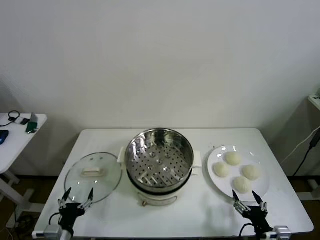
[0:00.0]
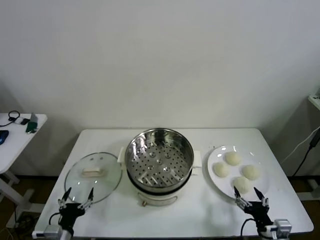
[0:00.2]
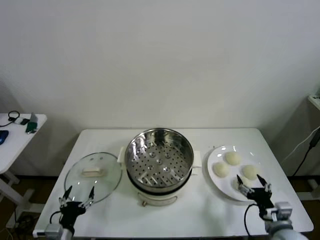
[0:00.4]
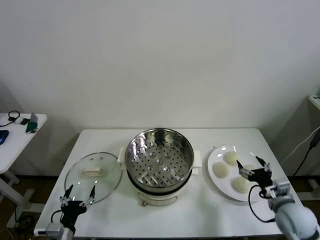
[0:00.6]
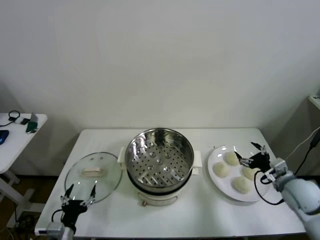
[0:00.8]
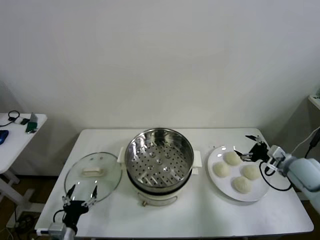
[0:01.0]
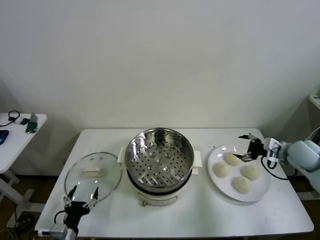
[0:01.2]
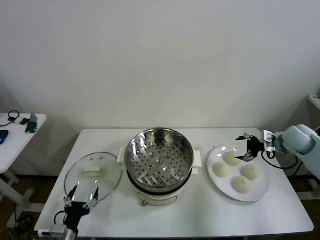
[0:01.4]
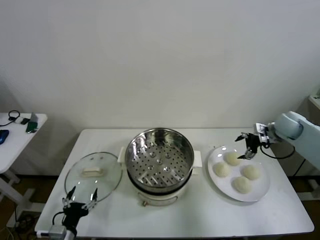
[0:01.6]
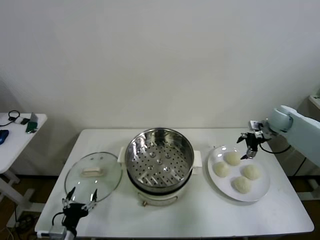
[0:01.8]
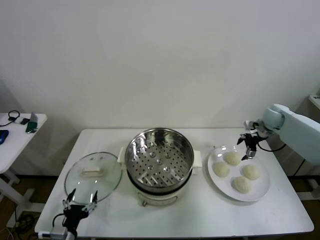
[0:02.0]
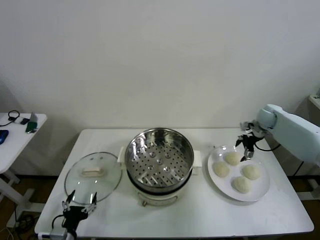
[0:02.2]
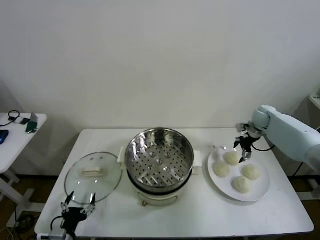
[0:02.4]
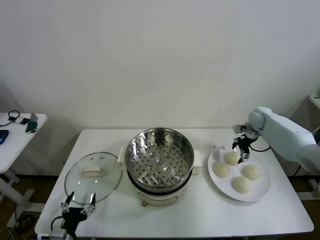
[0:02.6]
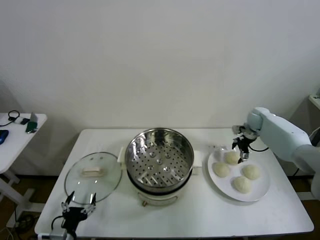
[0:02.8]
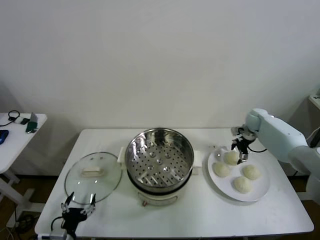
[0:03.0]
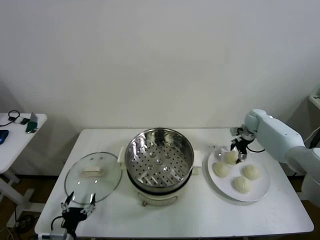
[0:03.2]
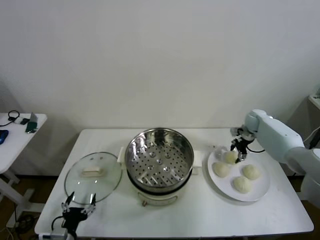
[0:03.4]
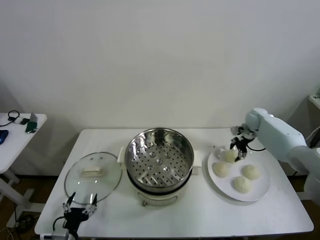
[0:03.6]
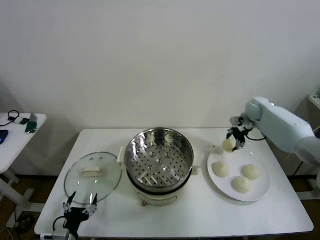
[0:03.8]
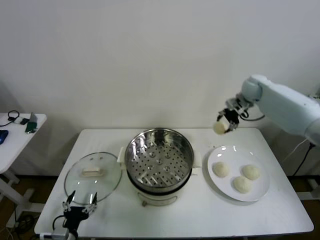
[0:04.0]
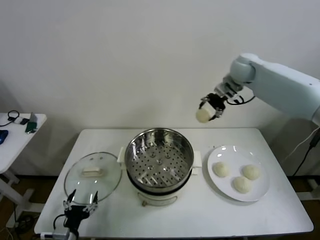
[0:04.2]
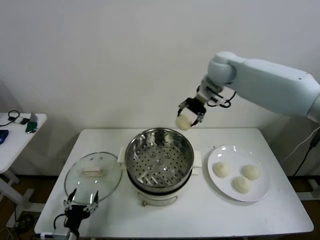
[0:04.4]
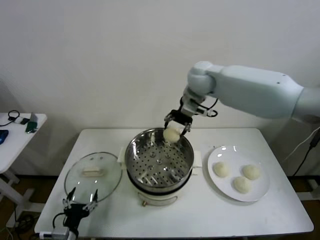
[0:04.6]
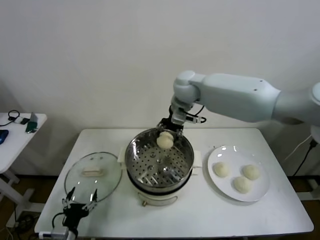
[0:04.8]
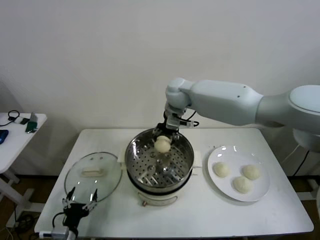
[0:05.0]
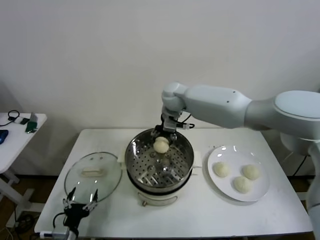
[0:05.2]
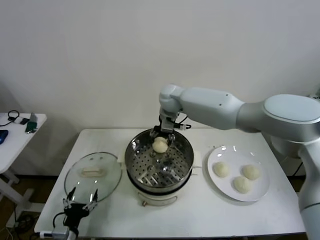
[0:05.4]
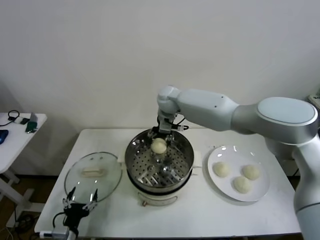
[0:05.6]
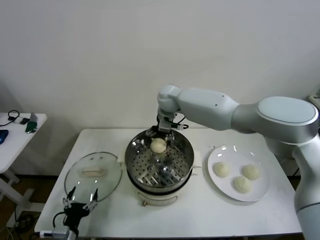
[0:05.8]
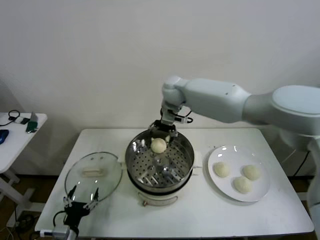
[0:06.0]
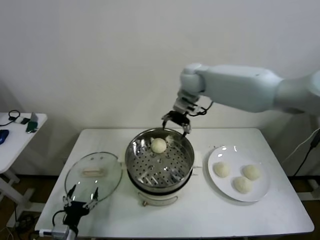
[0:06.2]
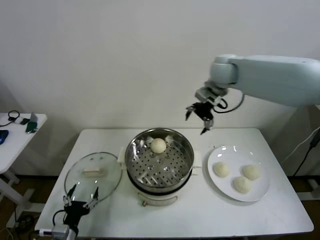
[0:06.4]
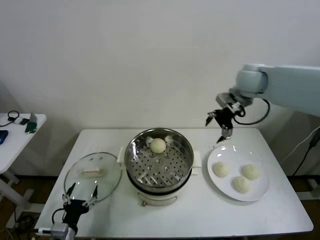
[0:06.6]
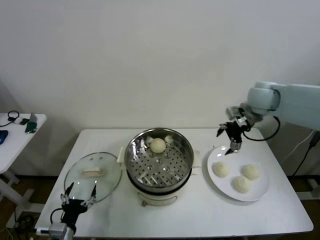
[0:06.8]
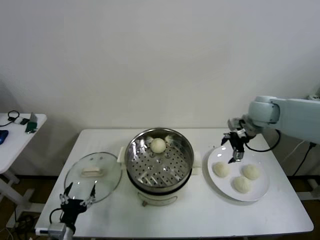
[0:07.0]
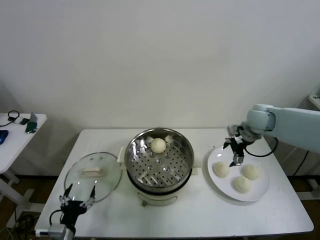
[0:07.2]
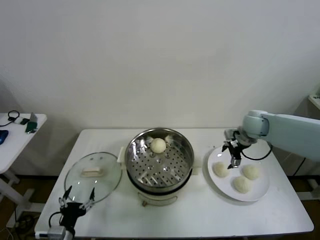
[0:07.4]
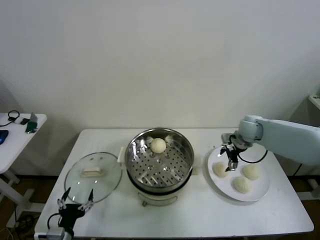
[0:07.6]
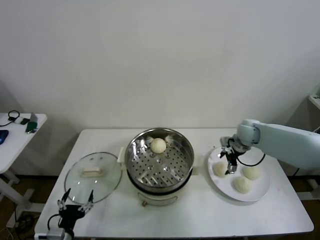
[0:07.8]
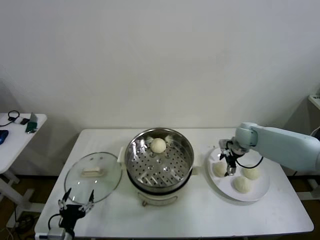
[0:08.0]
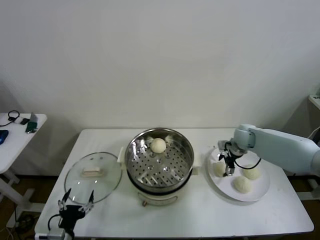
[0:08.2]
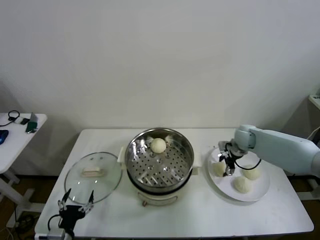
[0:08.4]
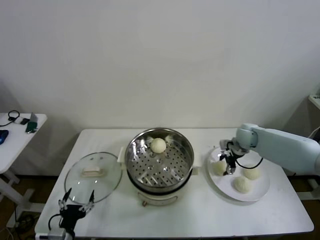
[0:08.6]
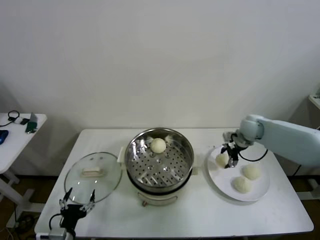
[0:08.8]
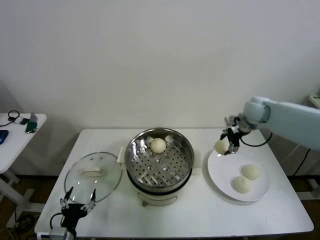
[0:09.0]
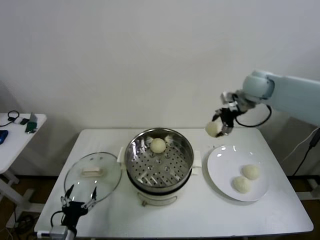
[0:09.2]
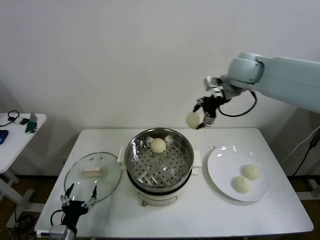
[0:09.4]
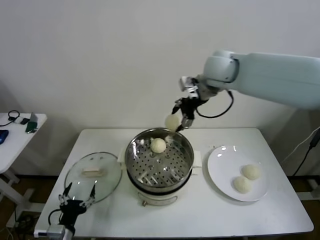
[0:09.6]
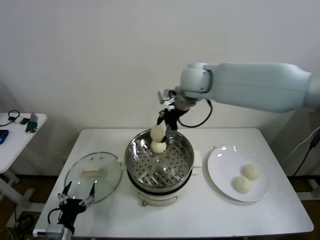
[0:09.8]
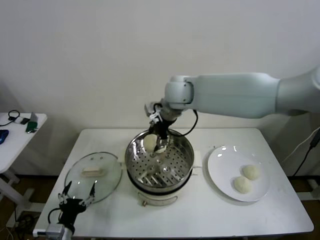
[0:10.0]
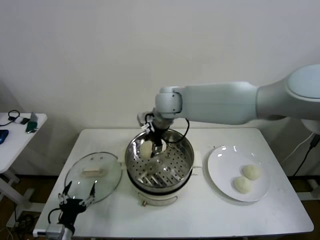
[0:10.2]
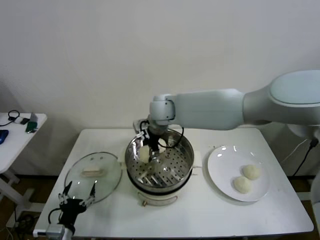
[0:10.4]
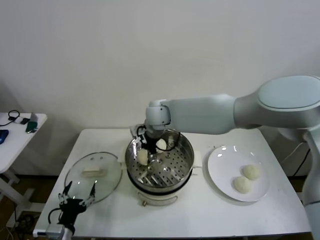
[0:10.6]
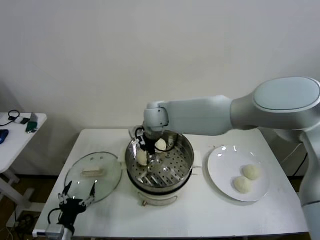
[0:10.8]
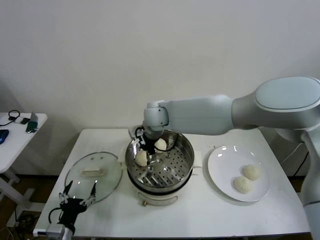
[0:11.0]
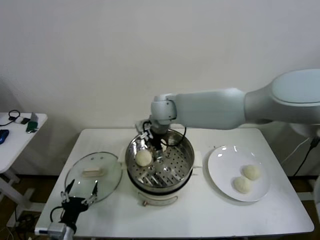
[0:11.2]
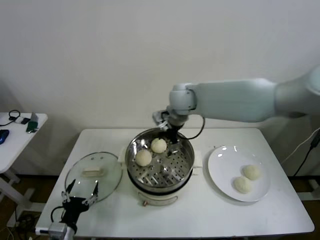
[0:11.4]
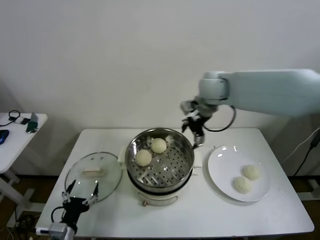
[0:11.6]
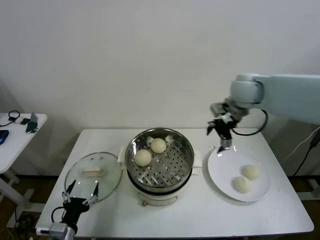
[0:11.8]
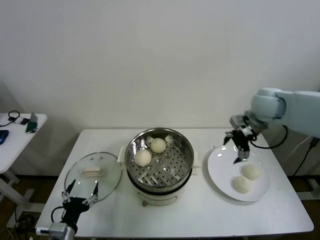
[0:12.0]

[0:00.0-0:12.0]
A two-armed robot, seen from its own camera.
Step, 0:00.0 to 0:03.4: Grasp the baozi in the plate with right gripper.
Step, 0:03.6 to 0:05.6: Place the baozi on the steamer with right gripper.
Step, 0:05.8 to 0:08.4: Grasp the baozi in the plate with right gripper.
Step, 0:08.6 to 0:11.0: Place the baozi on the steamer with right gripper.
0:01.6 to 0:03.0: The right gripper is displaced forward and downward by approximately 10 cm.
0:03.0 to 0:04.4: The right gripper moves to the left and upward, some 35 cm, and closes.
0:04.4 to 0:06.0: The right gripper shifts about 10 cm to the left, and opens up.
0:06.0 to 0:07.6: The right gripper travels to the right and downward by approximately 30 cm.
0:07.6 to 0:09.0: The right gripper shifts roughly 15 cm upward, and closes its fingers.
0:09.0 to 0:10.4: The right gripper heads to the left, covering some 35 cm.
0:10.4 to 0:12.0: The right gripper travels to the right by approximately 35 cm, and opens its fingers.

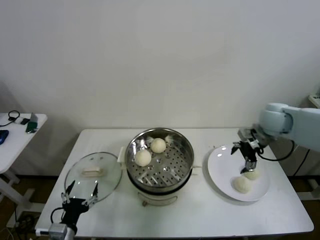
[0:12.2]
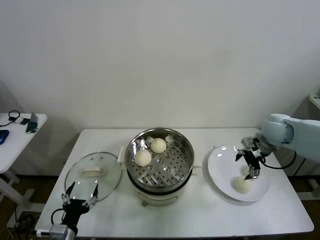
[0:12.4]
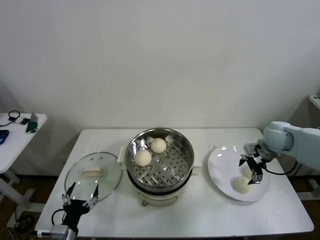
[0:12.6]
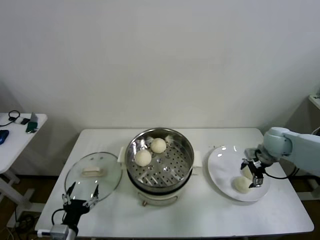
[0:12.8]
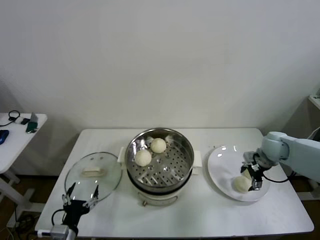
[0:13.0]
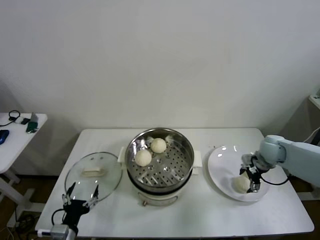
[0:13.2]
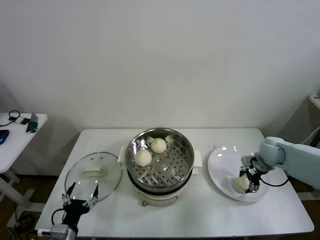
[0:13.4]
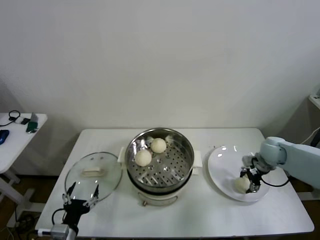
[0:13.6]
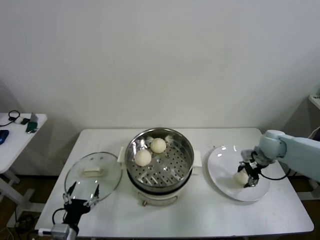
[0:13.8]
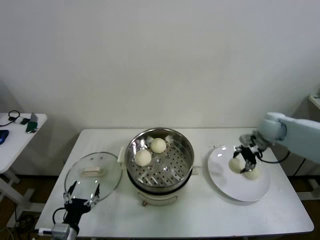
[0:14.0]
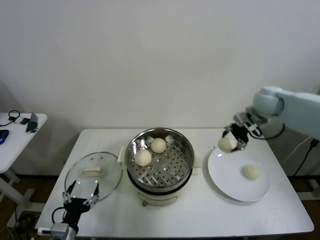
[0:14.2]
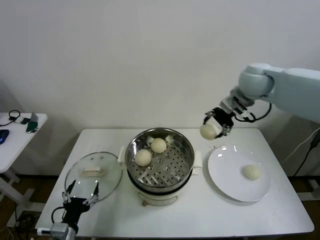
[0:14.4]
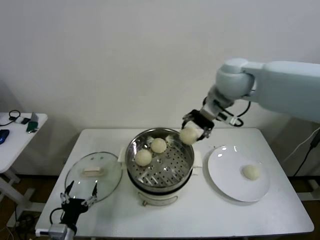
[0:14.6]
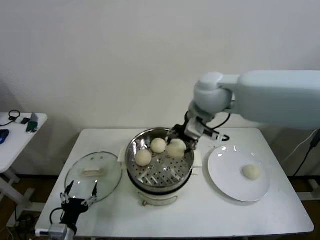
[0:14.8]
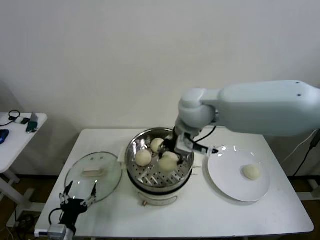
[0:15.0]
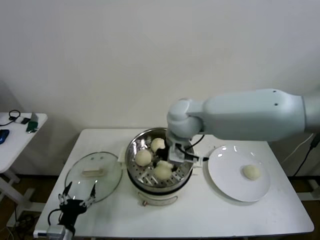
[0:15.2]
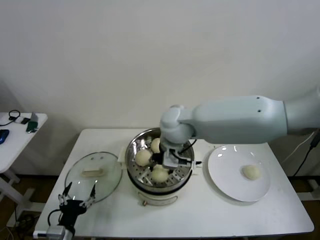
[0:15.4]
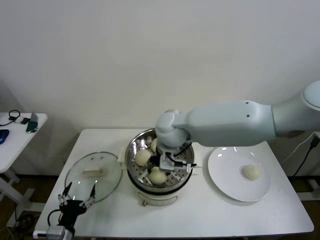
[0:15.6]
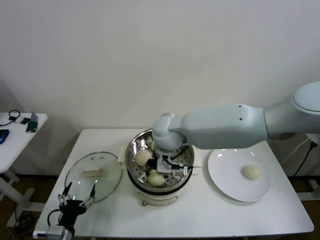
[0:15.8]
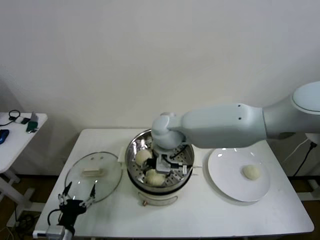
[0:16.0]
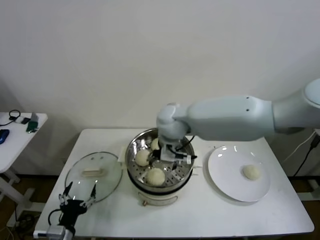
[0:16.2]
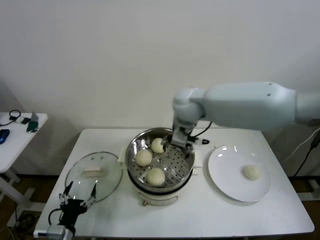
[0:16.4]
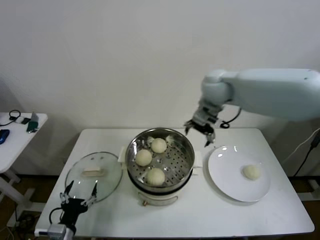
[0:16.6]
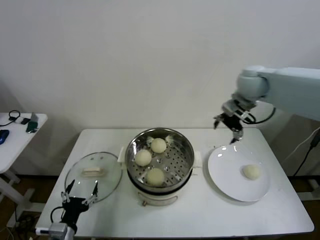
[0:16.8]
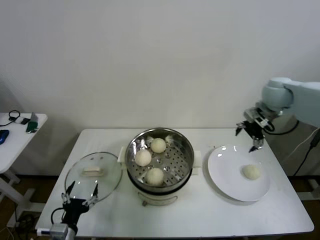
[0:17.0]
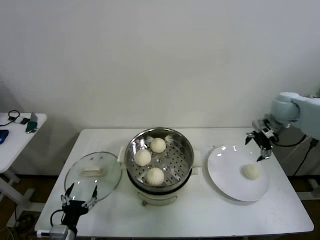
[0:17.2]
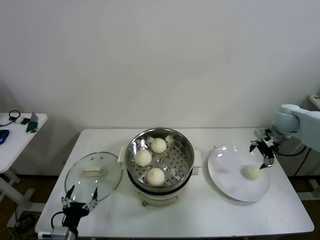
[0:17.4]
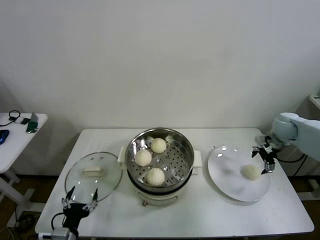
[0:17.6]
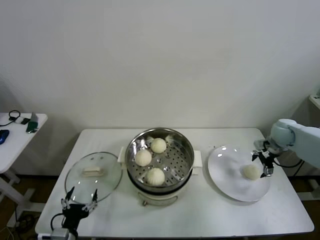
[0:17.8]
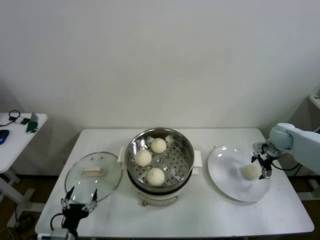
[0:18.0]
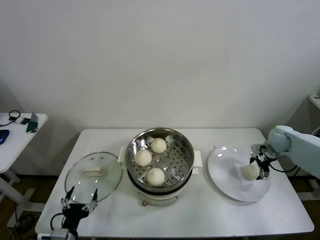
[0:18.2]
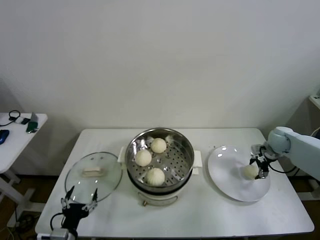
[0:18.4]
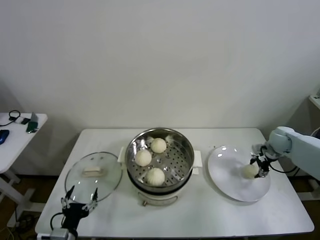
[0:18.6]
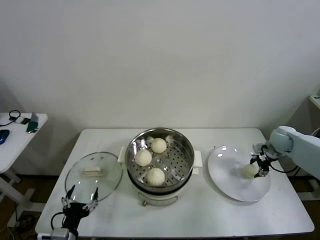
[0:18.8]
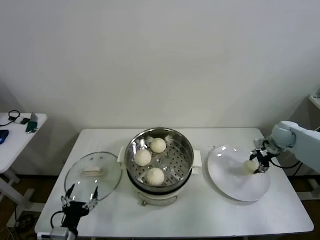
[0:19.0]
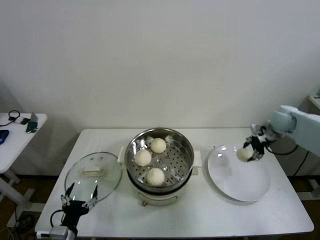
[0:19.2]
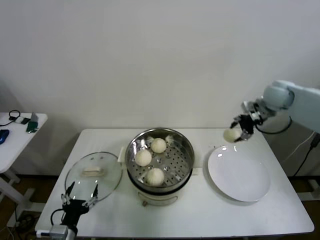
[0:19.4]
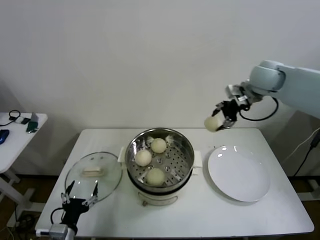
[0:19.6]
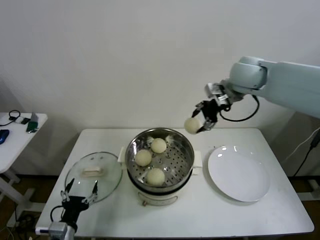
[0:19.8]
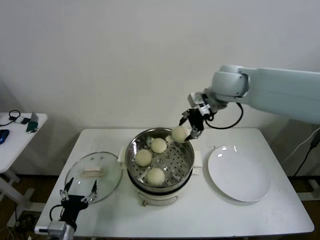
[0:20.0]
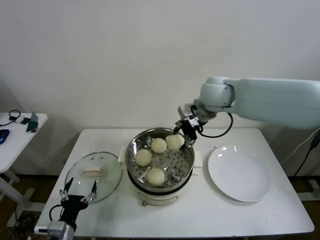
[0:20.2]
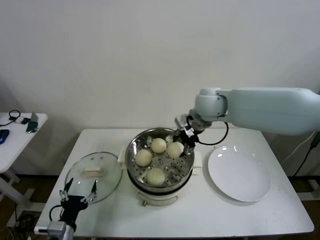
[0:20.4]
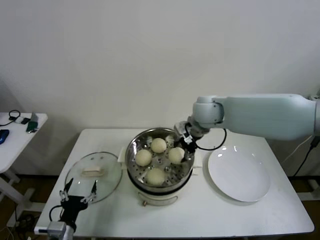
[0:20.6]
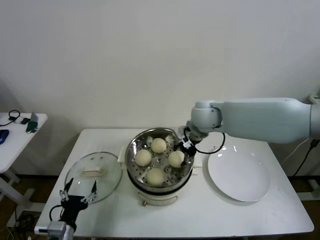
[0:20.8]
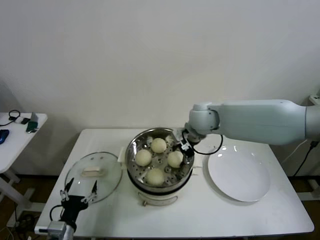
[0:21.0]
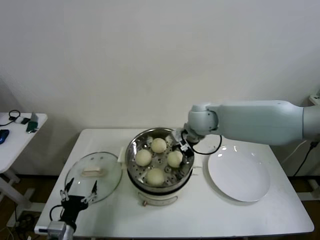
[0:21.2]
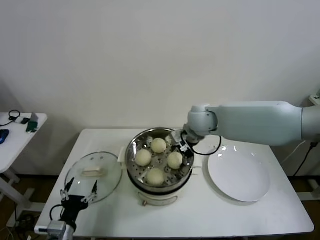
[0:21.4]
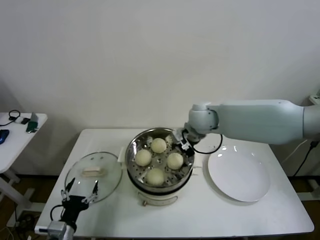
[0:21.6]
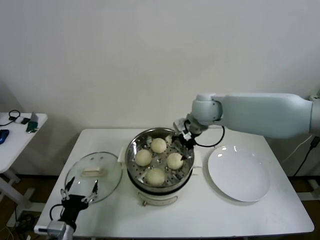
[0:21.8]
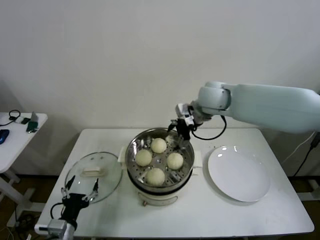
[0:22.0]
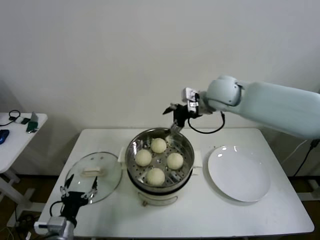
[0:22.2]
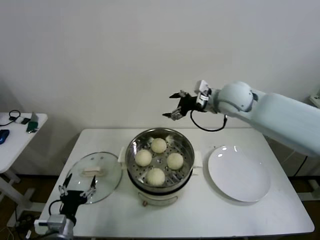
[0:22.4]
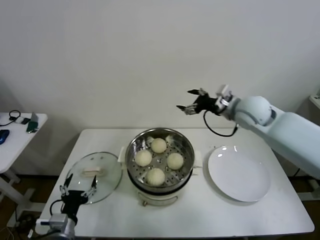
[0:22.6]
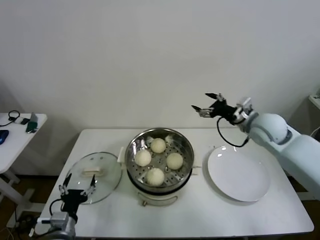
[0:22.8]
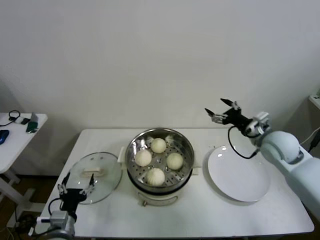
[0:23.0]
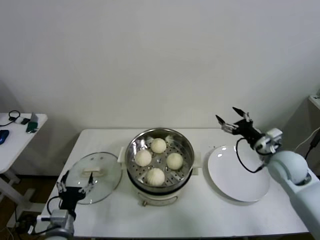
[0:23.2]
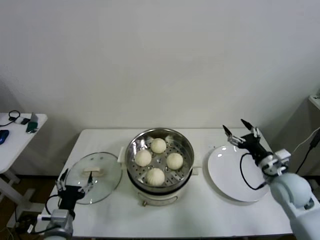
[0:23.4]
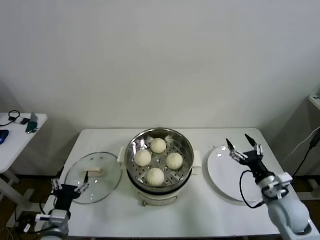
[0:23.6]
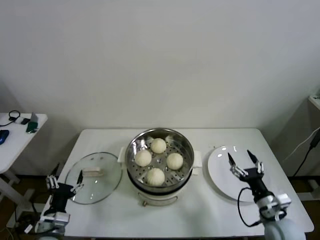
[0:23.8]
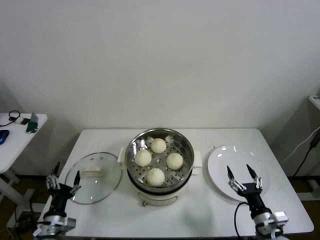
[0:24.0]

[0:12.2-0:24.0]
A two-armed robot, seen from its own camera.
Step, 0:12.2 to 0:13.4: Grasp the baozi in the plate with right gripper.
Step, 0:13.6 to 0:16.0: Place the baozi on the steamer with right gripper.
Step, 0:16.2 to 0:18.6: Grasp the baozi in the plate with right gripper.
Step, 0:18.8 to 0:21.4: Place the baozi on the steamer with right gripper.
0:12.2 to 0:13.6: The right gripper shifts approximately 15 cm downward, and closes its fingers.
0:13.6 to 0:15.2: The right gripper travels to the left and upward by approximately 40 cm.
0:15.2 to 0:16.6: The right gripper shifts approximately 15 cm to the right, forward and upward, and opens its fingers.
0:16.6 to 0:18.2: The right gripper is displaced to the right and downward by approximately 35 cm.
0:18.2 to 0:19.6: The right gripper is displaced upward and to the left by roughly 30 cm, and closes.
0:19.6 to 0:21.0: The right gripper is displaced to the left and downward by approximately 20 cm.
0:21.0 to 0:22.6: The right gripper moves to the right, about 15 cm, and opens.
0:22.6 to 0:24.0: The right gripper moves backward and downward, approximately 40 cm.
